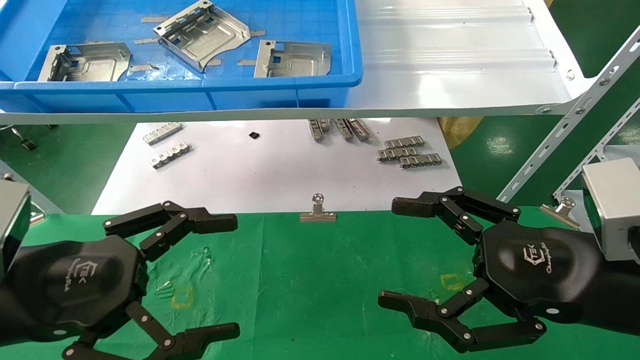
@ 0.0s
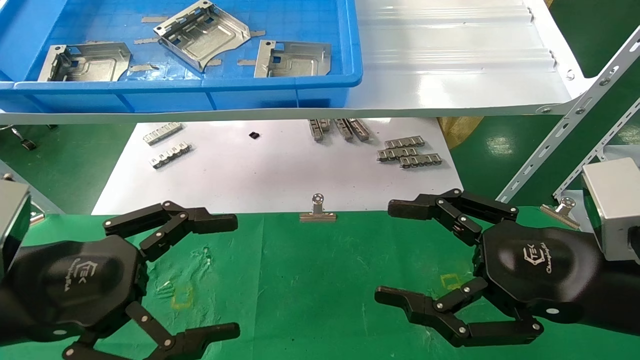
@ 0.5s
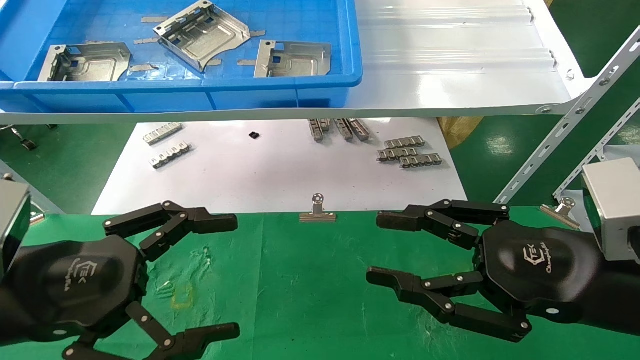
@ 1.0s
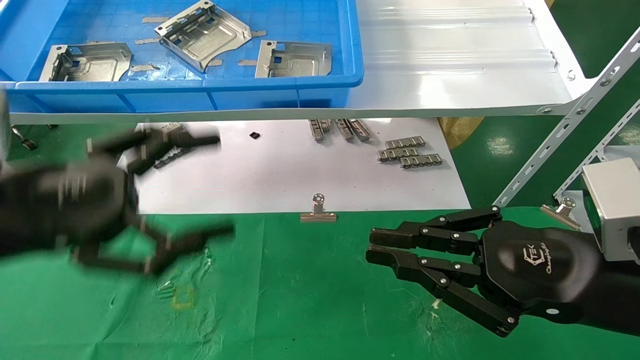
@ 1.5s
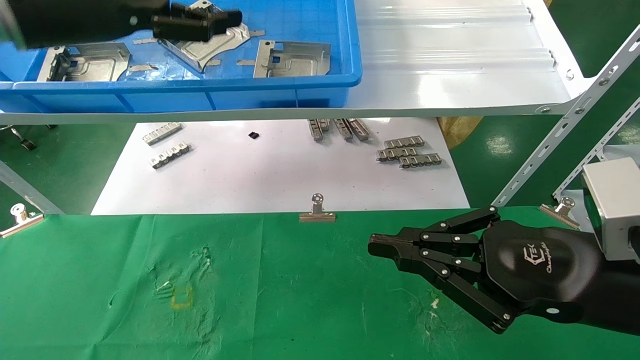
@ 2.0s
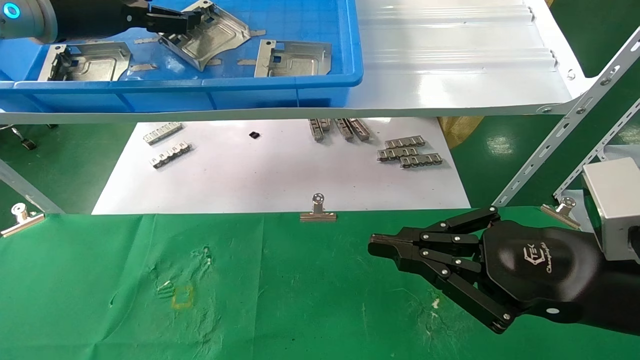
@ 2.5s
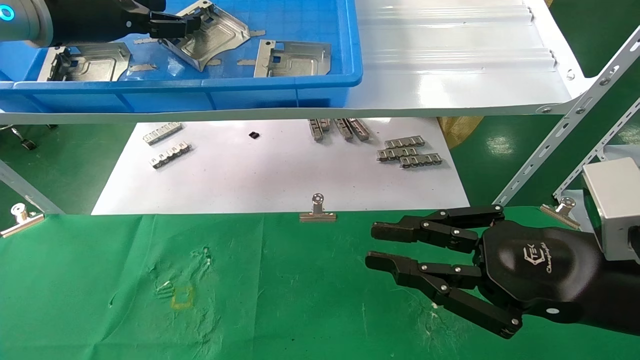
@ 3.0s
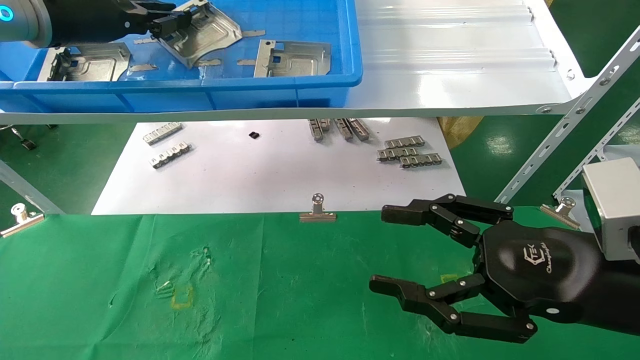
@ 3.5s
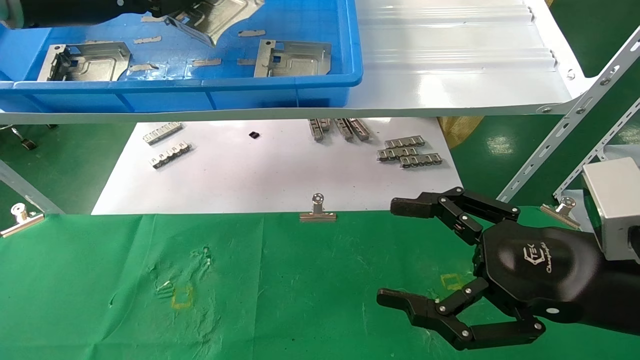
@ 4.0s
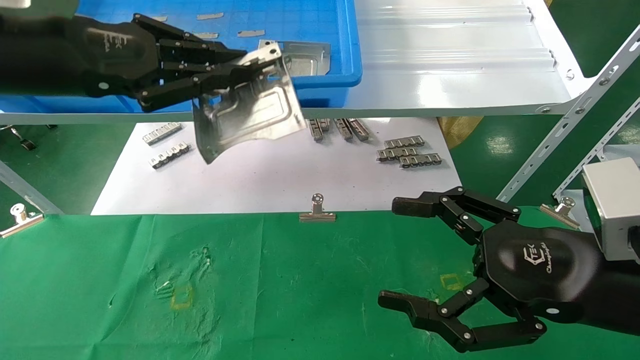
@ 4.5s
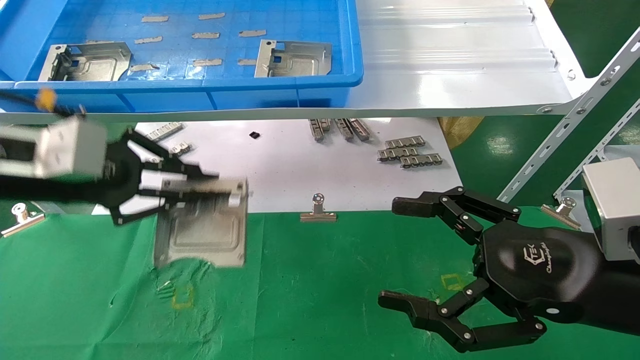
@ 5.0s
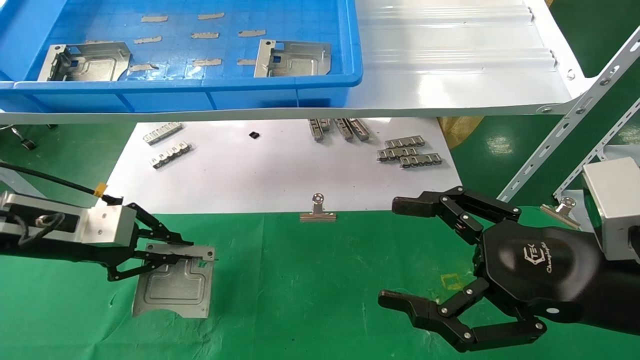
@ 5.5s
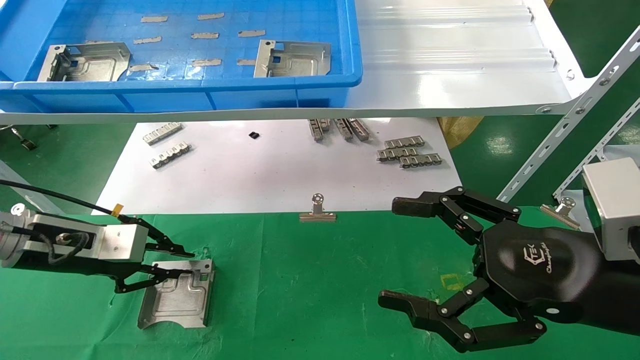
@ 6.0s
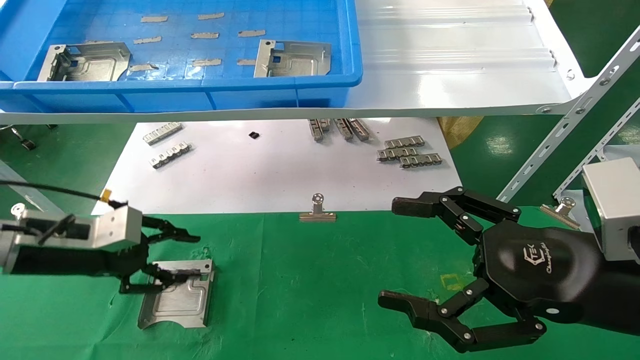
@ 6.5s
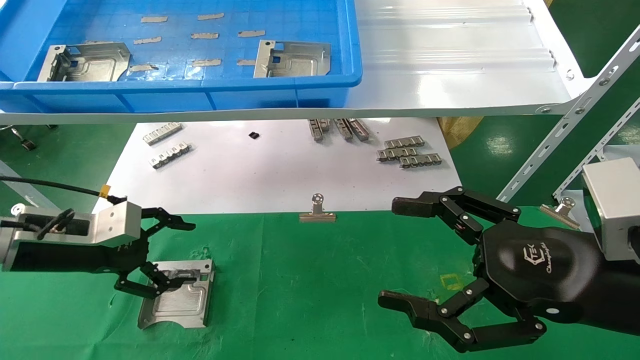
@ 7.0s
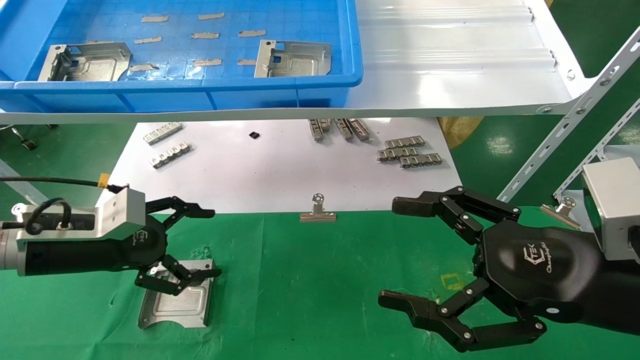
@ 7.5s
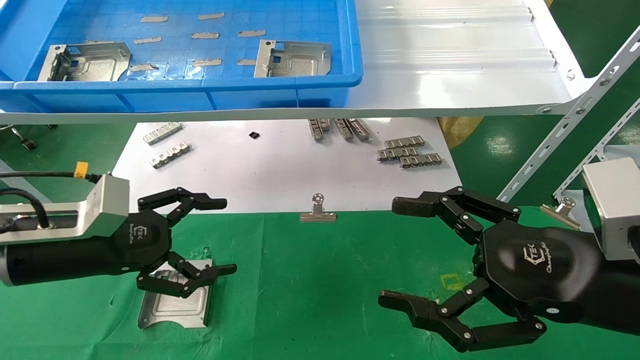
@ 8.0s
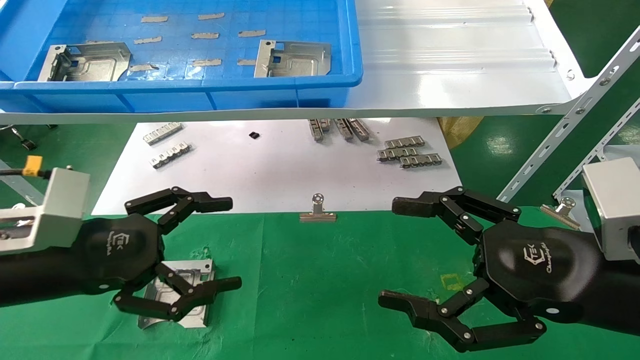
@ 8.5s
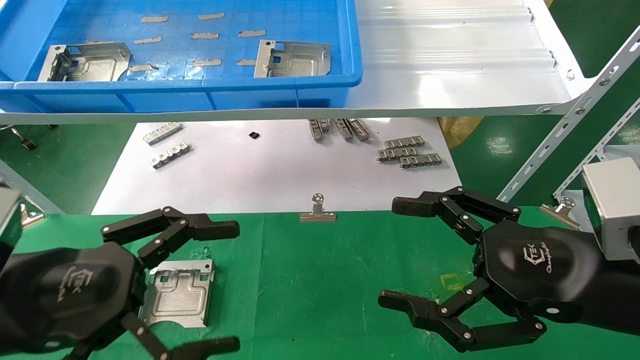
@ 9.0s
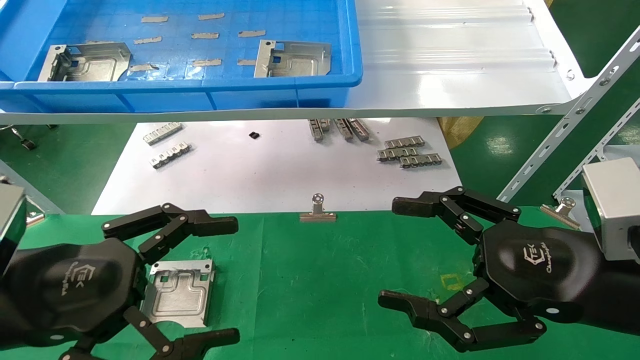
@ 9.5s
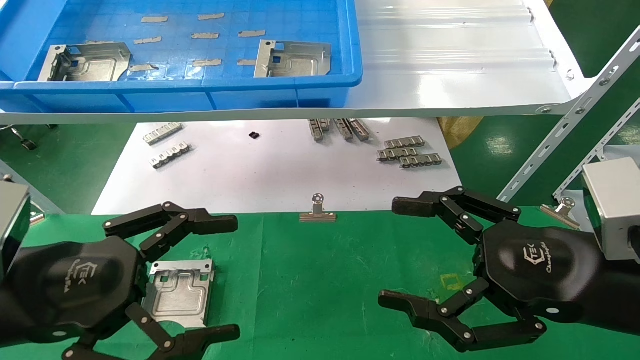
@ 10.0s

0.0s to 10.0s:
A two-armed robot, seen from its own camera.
Task of the whole recording: use the mechanical arm to pick up the parts and place them on the table.
Step, 2.0s to 3.5s: Pick up the hard drive bracket from the feeding area.
Step, 4.0s to 6.0s: Place the hard drive bracket into the box.
0.0s to 2.0s: The left gripper is displaced upward and forward by roughly 25 cm, while the right gripper closes.
2.0s to 4.0s: The right gripper opens, while the left gripper closes up.
4.0s to 6.0s: The left gripper shifts some 25 cm downward.
6.0s to 8.0s: The left gripper travels backward by roughly 5 cm, and opens its fingers.
8.0s to 10.0s: The left gripper travels backward by roughly 10 cm.
